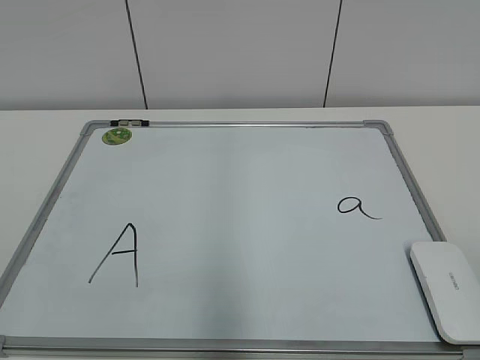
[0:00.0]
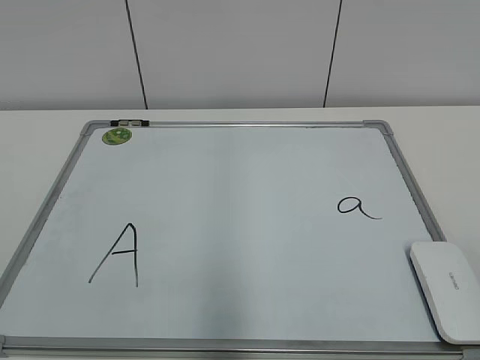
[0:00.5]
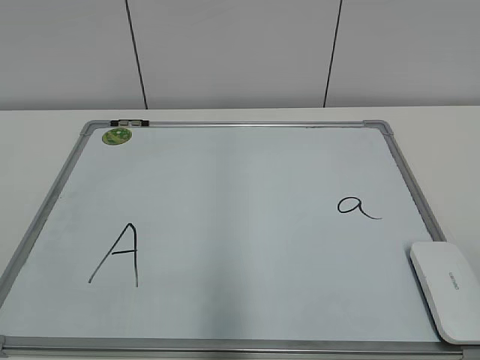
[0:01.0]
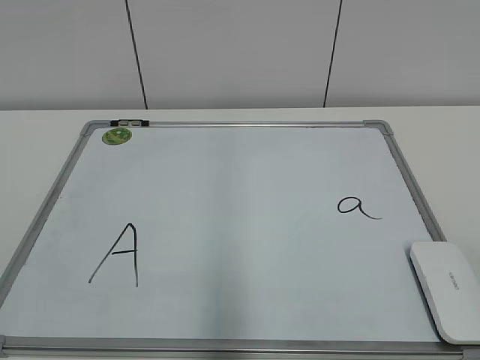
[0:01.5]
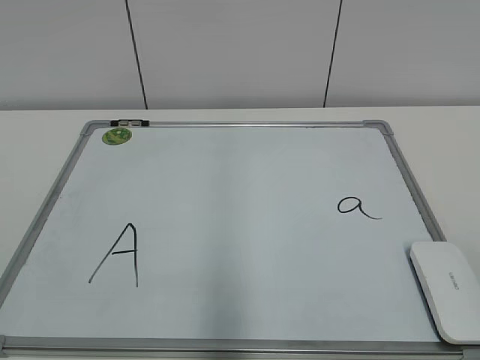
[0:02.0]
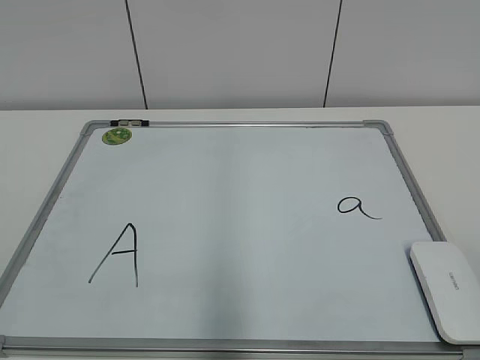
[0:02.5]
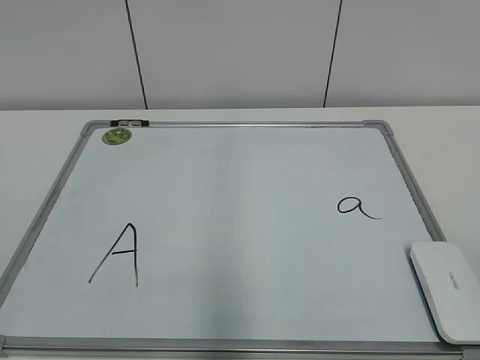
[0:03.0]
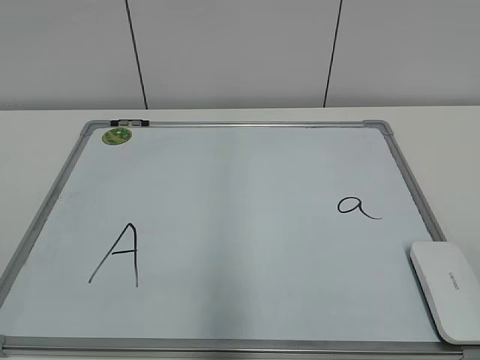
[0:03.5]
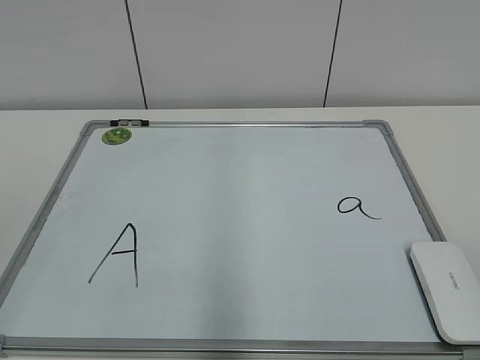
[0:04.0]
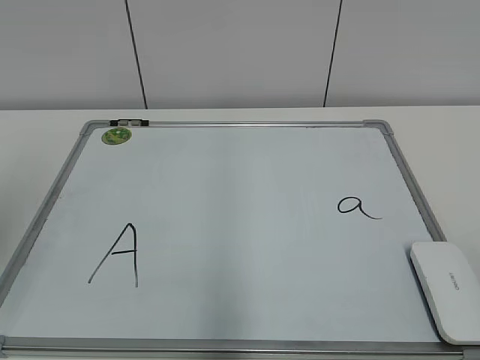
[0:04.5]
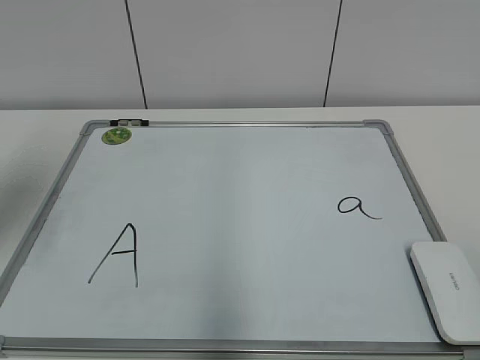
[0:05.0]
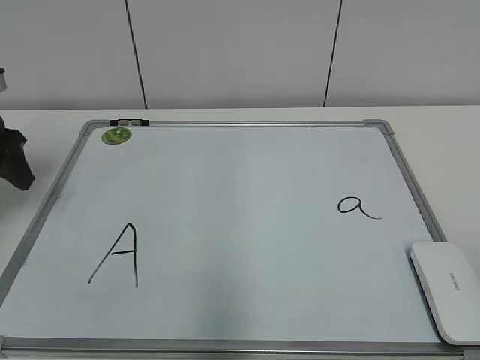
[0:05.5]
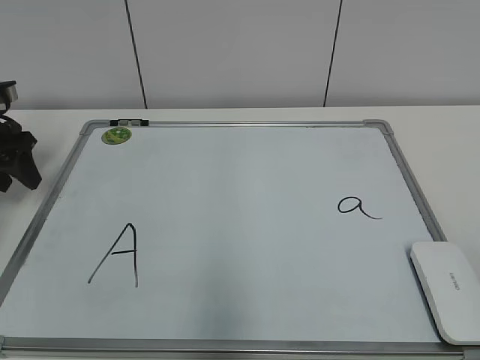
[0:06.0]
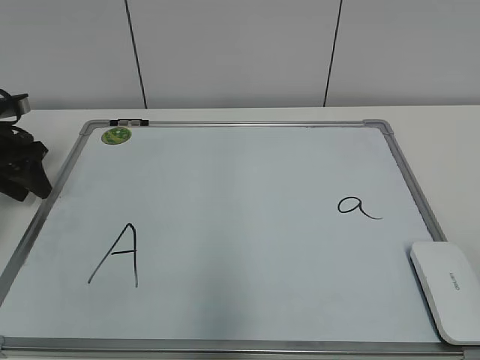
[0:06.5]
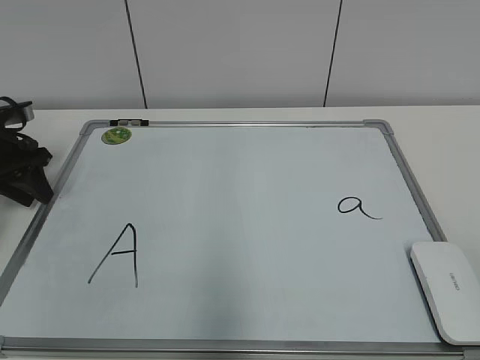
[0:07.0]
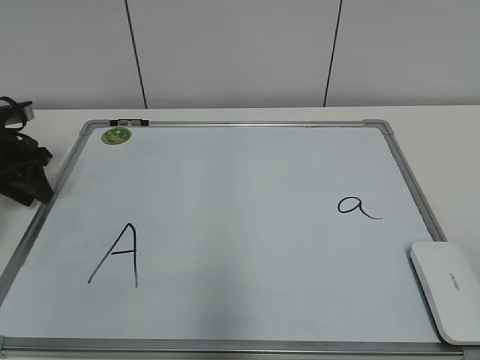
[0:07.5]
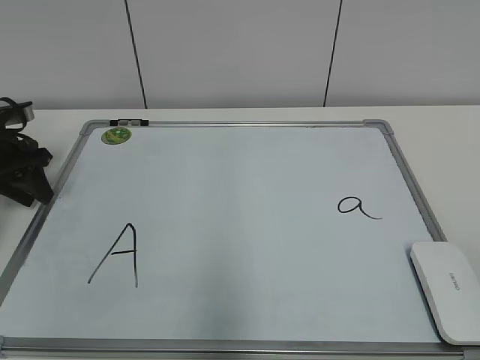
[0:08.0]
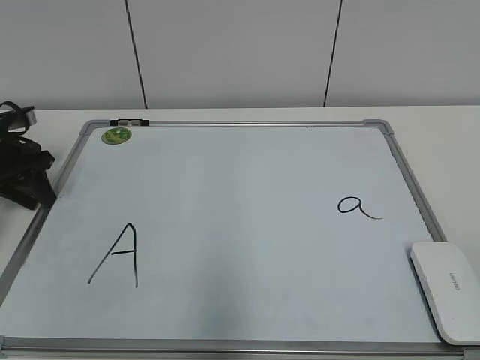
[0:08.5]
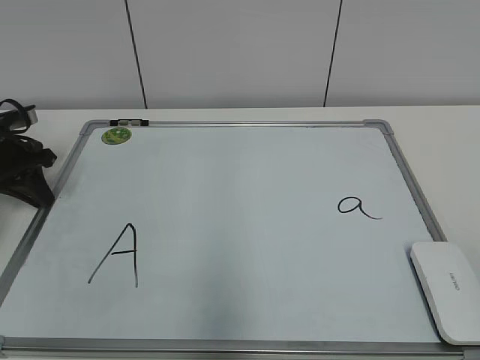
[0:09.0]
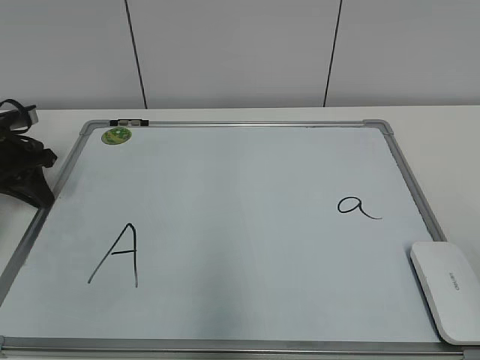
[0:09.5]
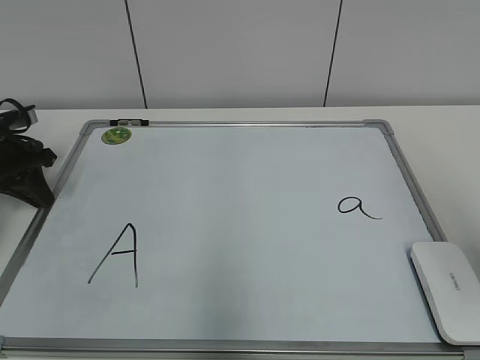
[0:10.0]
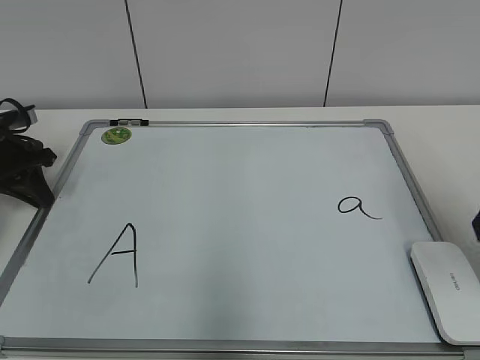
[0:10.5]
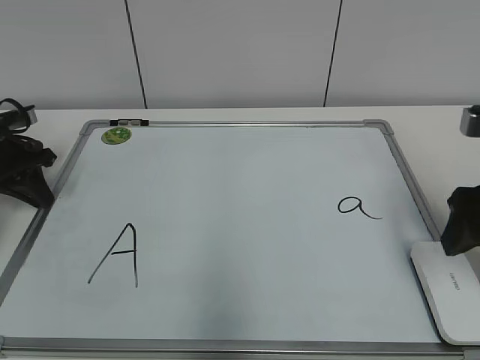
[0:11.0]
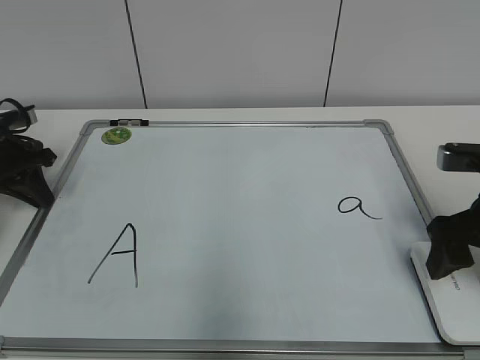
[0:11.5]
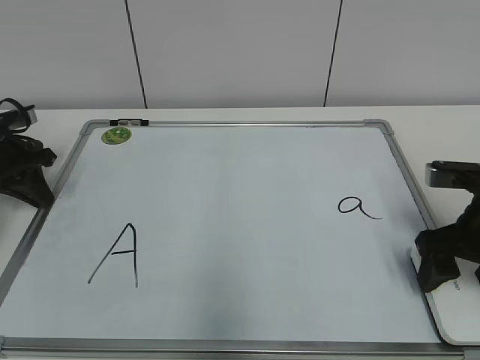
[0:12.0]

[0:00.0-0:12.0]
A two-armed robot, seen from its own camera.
Task of the whole recording: pick up the eraser on the blackboard and erase the letter "a".
Step, 0:00.0 to 0:10.0: Hold the drawing board steady with your left hand.
0:04.0 to 0:06.0: The left gripper is displaced forward by roughly 35 cm.
0:06.0 to 0:08.0: There are only small adjustments of the grippers.
0:08.0 to 0:10.0: The left gripper closes its fingers; the right gripper heads forward and upward, covering about 15 cm.
0:10.0 to 0:12.0: The right gripper moves downward and forward, roughly 25 cm.

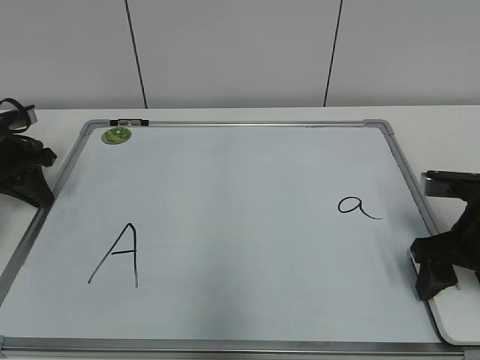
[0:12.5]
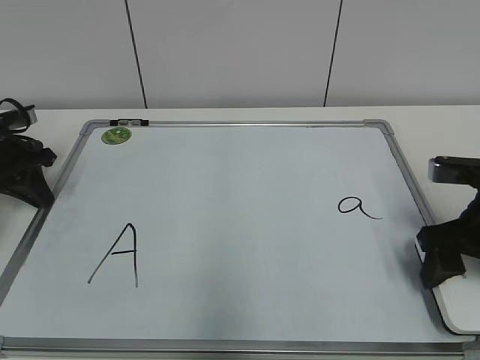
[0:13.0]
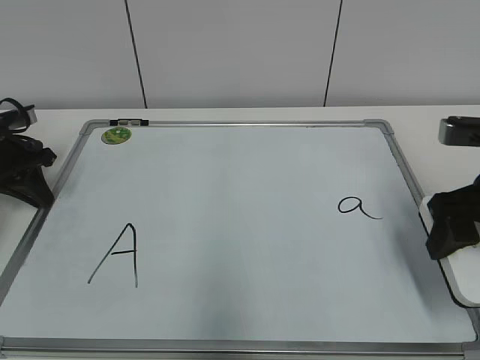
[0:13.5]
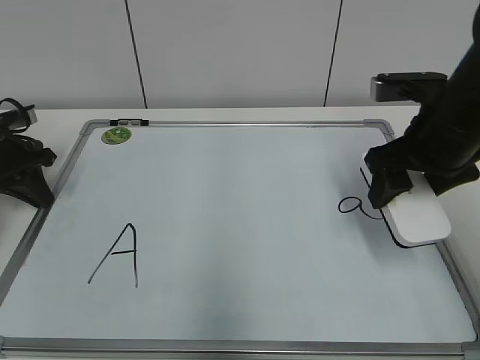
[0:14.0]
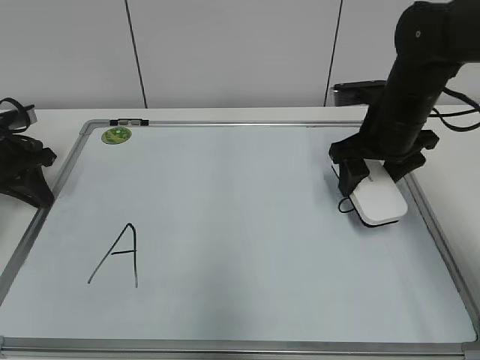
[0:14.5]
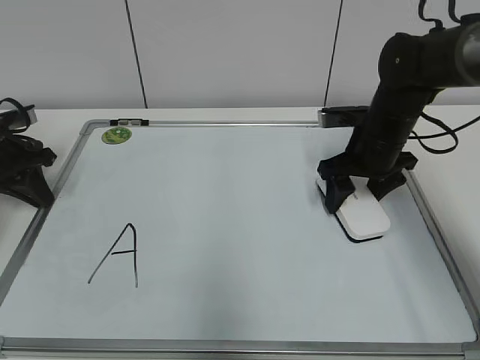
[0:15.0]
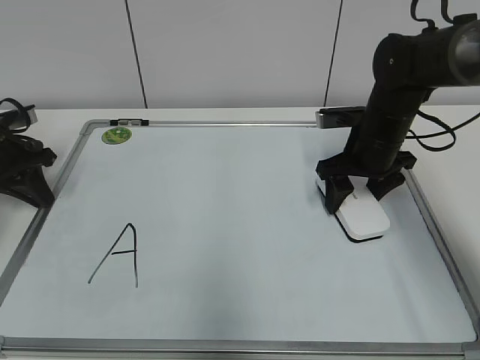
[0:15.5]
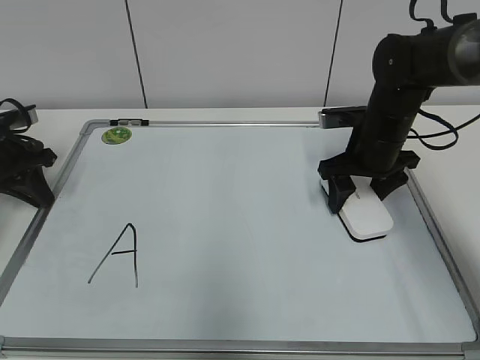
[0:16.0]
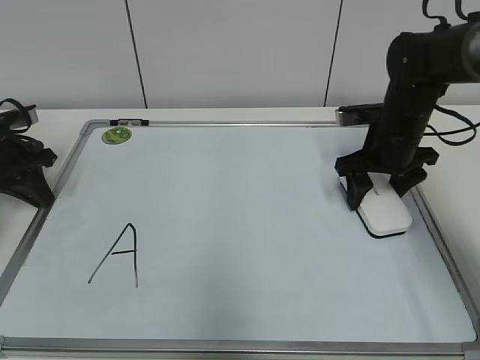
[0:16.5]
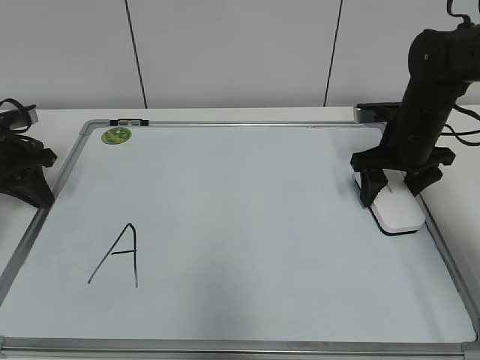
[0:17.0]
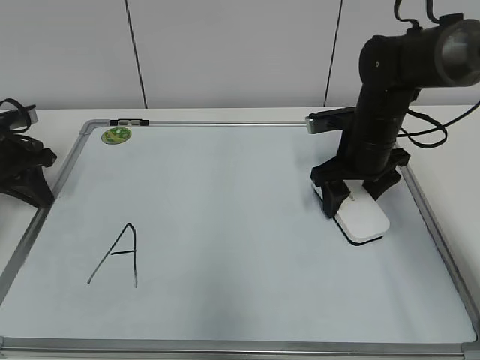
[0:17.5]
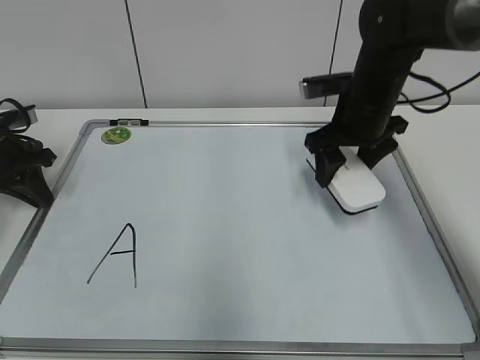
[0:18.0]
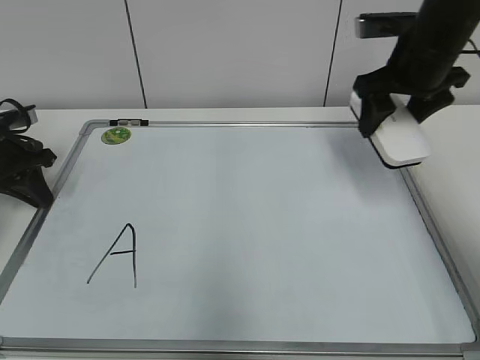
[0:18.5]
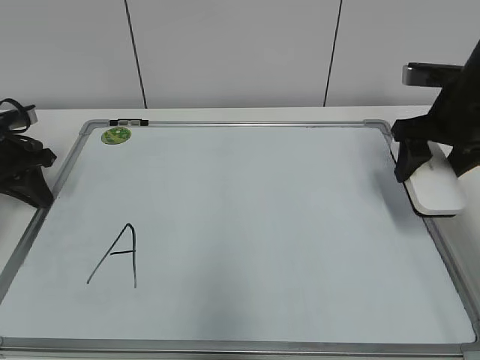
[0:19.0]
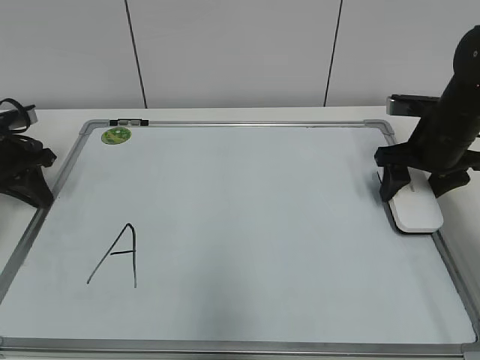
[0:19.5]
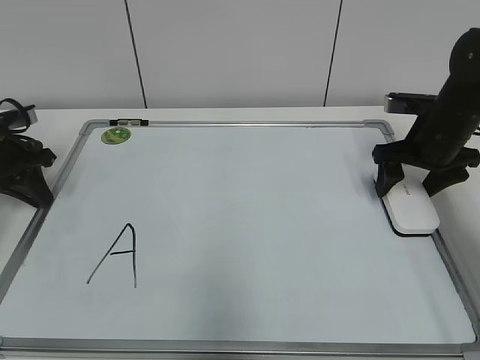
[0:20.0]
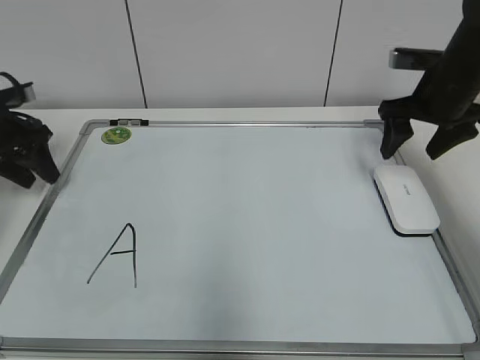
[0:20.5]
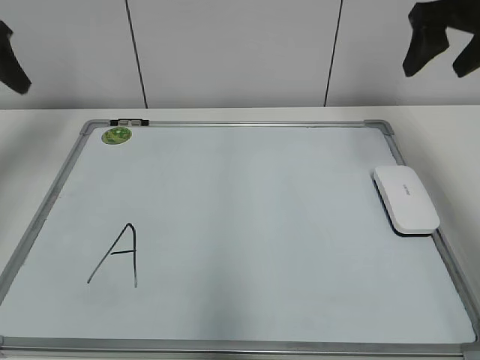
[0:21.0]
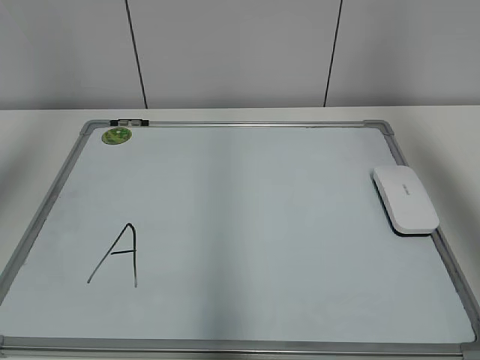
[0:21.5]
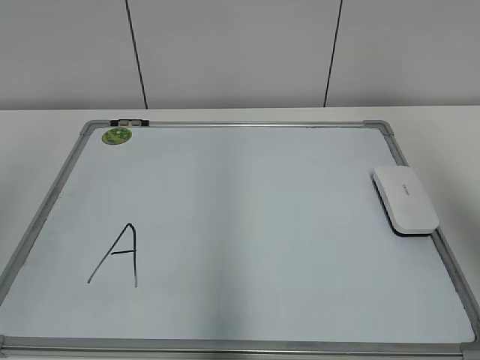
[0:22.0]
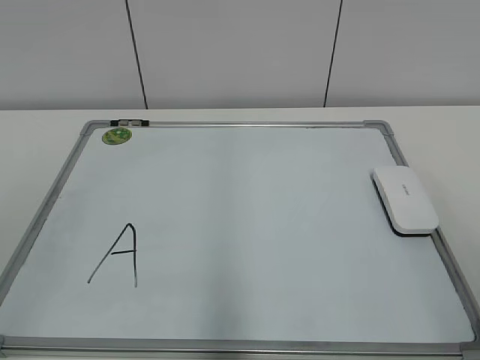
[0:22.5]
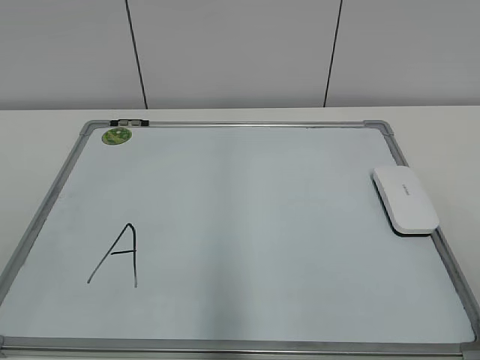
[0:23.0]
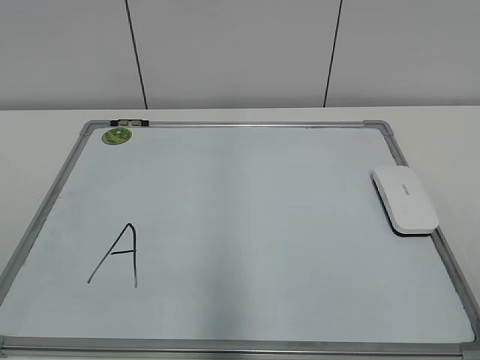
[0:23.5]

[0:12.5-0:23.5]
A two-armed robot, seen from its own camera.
Task of the whole recording: pick up the eraser on the blackboard and erase the letter "a".
Step, 0:13.0 to 0:17.0: Erase the letter a with your right hand.
Step, 0:17.5 to 0:19.5: Put down the eraser with your right hand.
0:12.5 to 0:14.5: The right gripper goes approximately 15 cm forward, to the left and upward.
0:14.5 to 0:16.0: The right gripper shifts by some 5 cm.
0:16.0 to 0:18.0: The right gripper ends up about 5 cm from where it was.
0:18.0 to 0:20.0: The right gripper goes about 10 cm to the right, and goes upward and returns, about 10 cm each way.
0:20.0 to 0:21.5: The right gripper moves upward, approximately 30 cm. Meanwhile the left gripper goes approximately 35 cm upward and backward, and opens up.
0:21.5 to 0:23.5: Both grippers travel together backward and downward, some 30 cm.

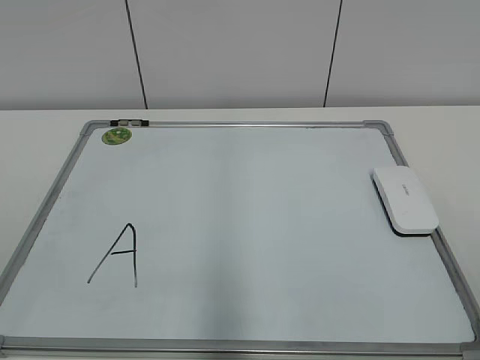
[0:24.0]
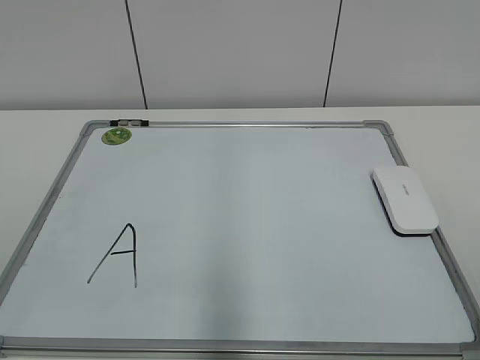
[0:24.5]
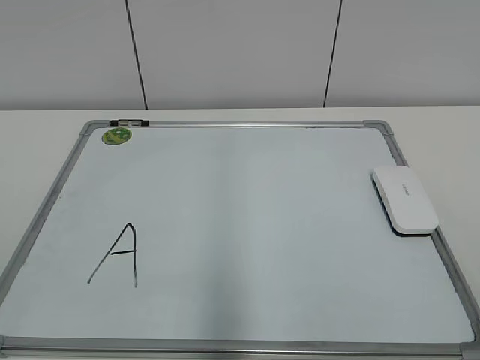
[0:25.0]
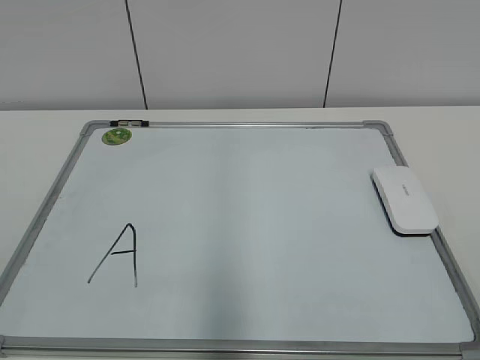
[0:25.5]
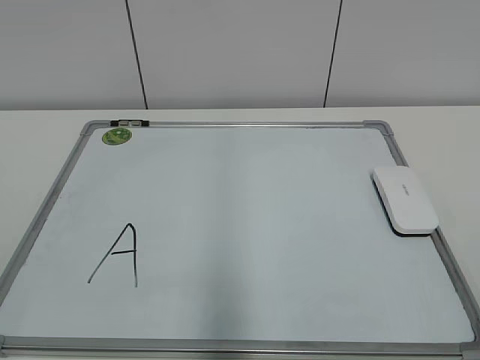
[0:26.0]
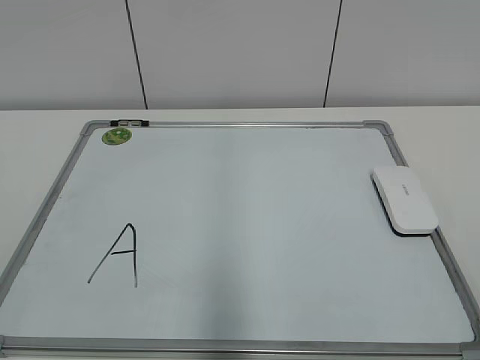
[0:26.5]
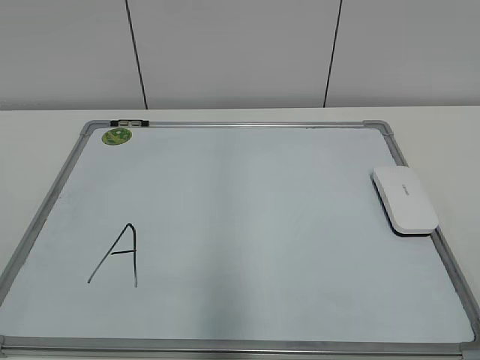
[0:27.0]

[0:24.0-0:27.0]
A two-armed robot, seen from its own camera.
Task of the whole recording: pick up the eraser on the blackboard and erase the letter "a".
0:25.5 to 0:27.0: Both grippers stay about where they are.
